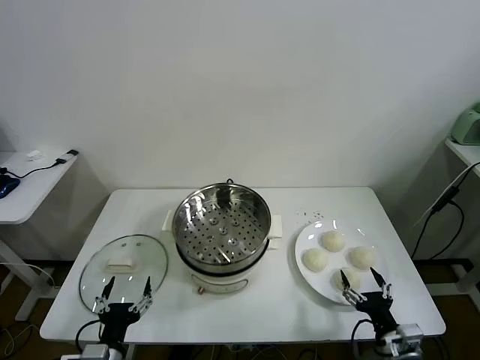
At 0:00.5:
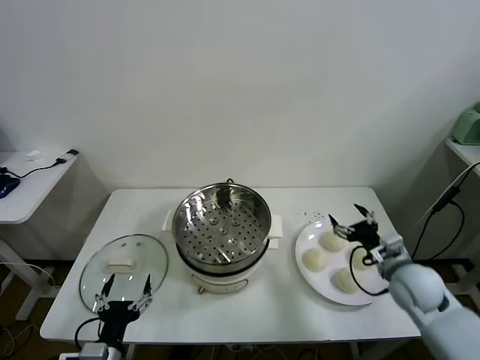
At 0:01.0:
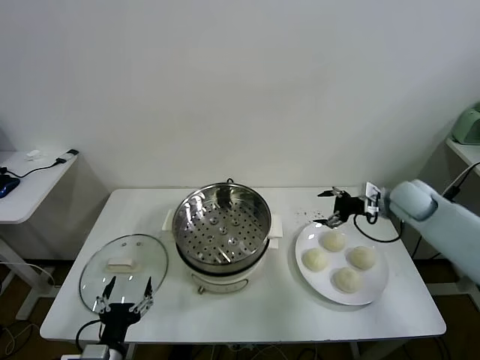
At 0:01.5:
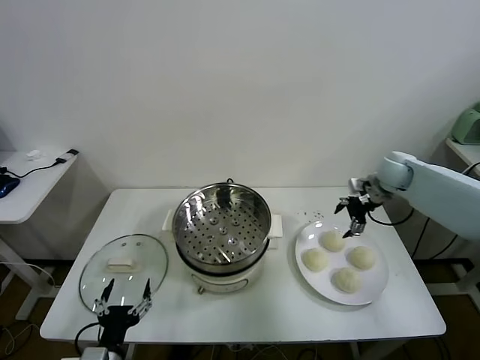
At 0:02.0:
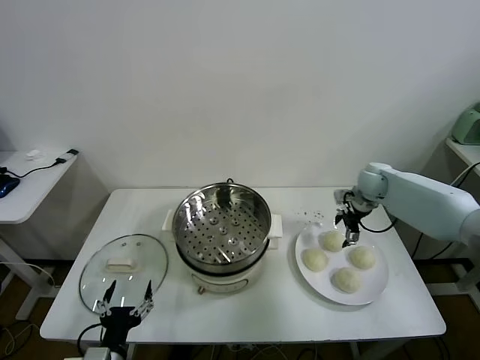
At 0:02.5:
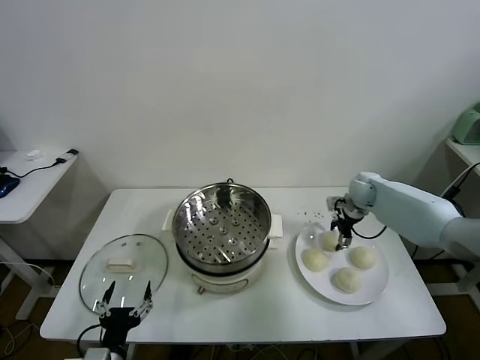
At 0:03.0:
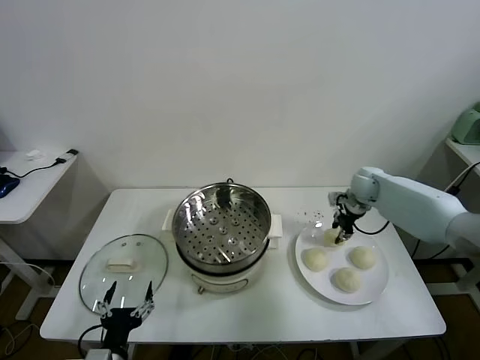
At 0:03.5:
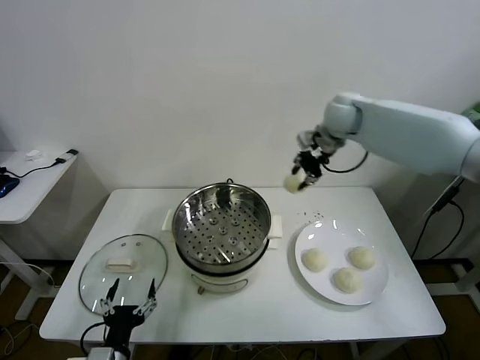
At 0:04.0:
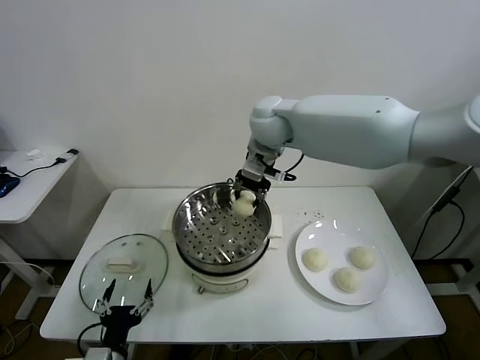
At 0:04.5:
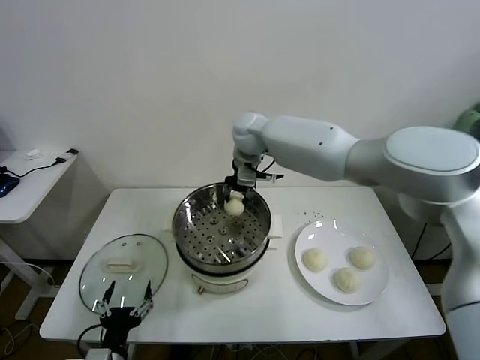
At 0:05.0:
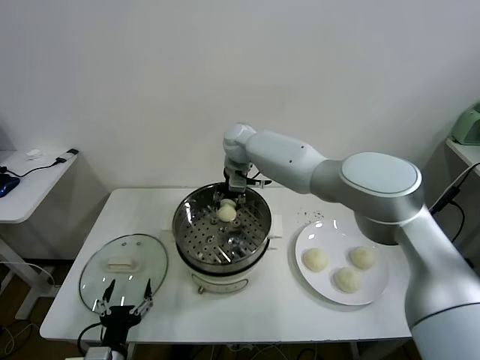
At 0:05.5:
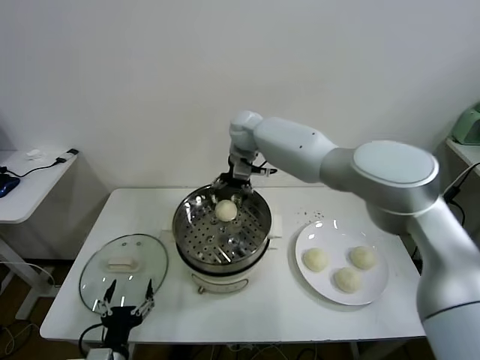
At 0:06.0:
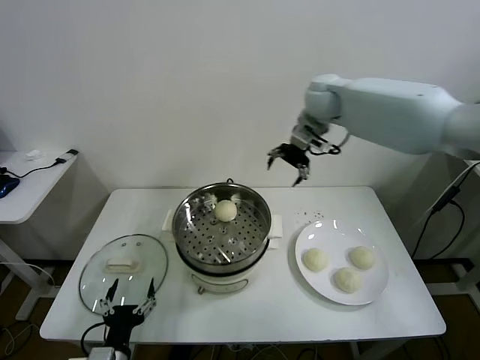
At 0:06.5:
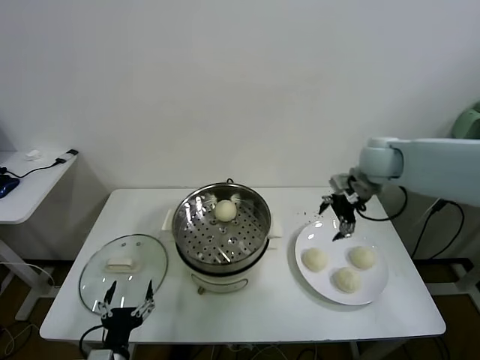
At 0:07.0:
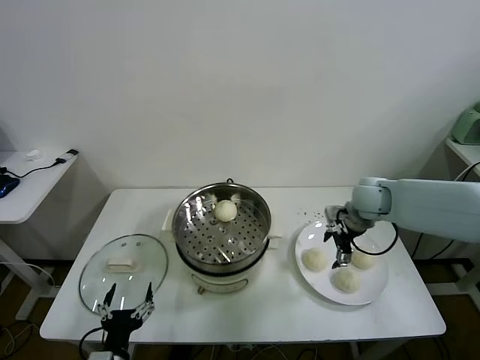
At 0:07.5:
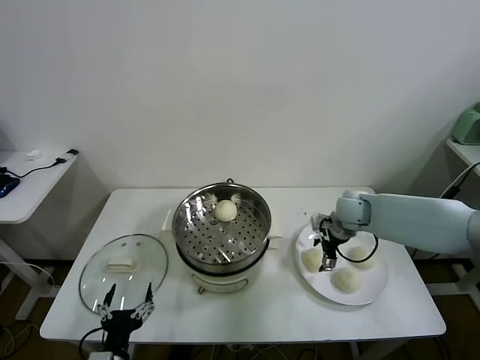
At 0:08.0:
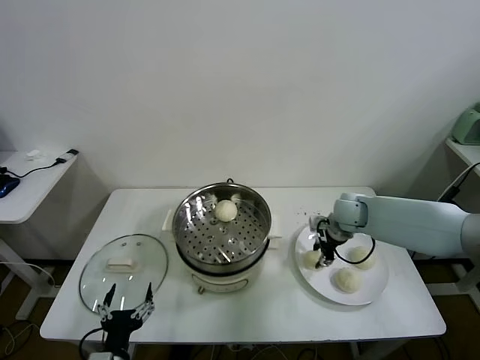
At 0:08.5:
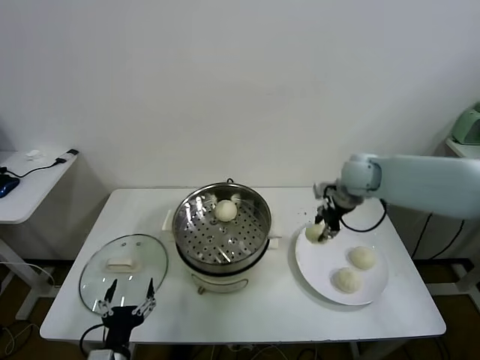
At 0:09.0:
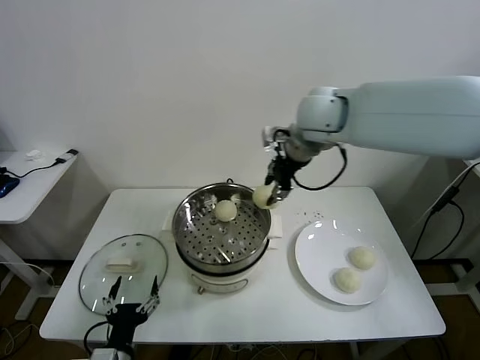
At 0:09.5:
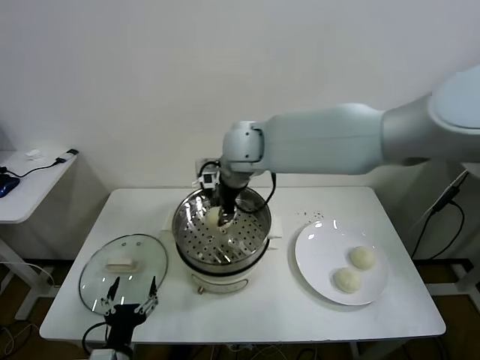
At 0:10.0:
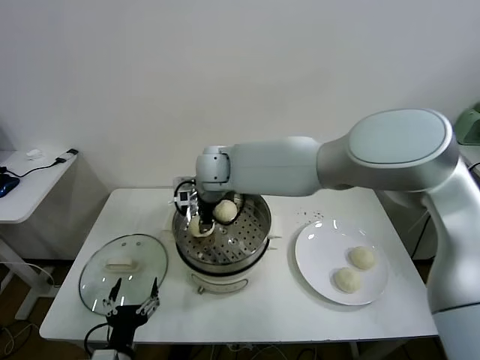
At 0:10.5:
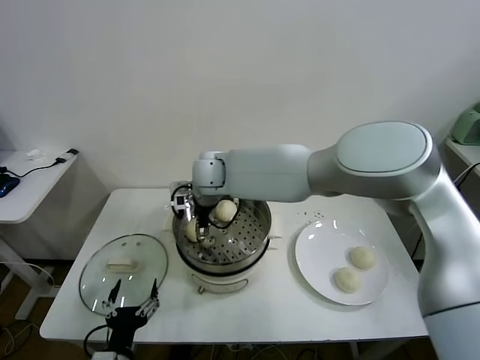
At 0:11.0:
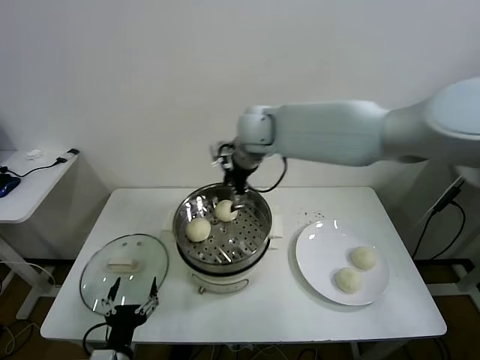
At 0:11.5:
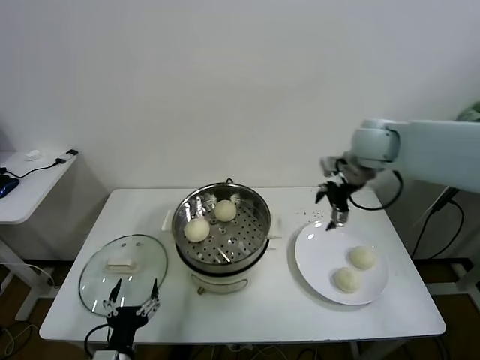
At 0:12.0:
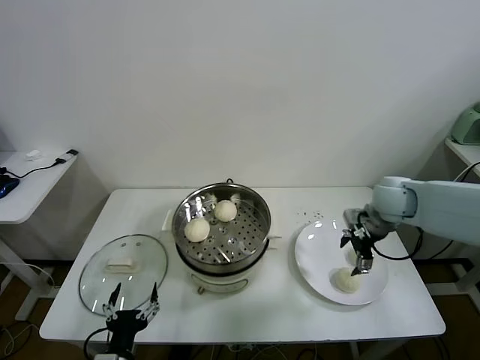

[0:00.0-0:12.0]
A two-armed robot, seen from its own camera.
Task of the whole recording: take steamed baozi put them in steamer.
Step, 0:00.0 to 0:02.5: Grasp the baozi in the plate with right gripper.
Step, 0:03.0 to 0:05.0: Place the baozi on the steamer with right gripper.
Step, 0:05.5 to 0:07.5: Grasp the baozi in the plate with right gripper.
Step, 0:08.0 to 0:10.5: Place the baozi on the steamer with right gripper.
0:02.0 to 0:04.0: The right gripper goes about 35 cm to the left and upward, and closes its fingers.
0:04.0 to 0:06.0: The right gripper goes about 15 cm to the right, and opens.
0:06.0 to 0:08.0: The right gripper heads downward, covering some 25 cm, and closes.
0:08.0 to 0:10.0: The right gripper is displaced to the left and upward by roughly 35 cm.
0:10.0 to 0:12.0: The right gripper moves to the right, approximately 40 cm, and opens its fingers.

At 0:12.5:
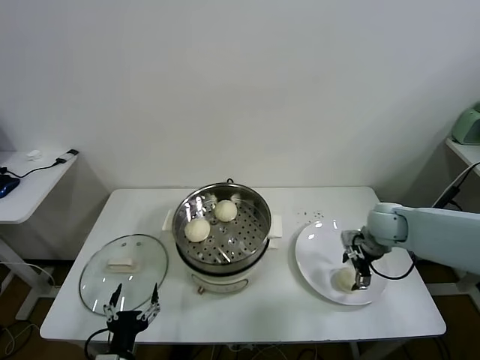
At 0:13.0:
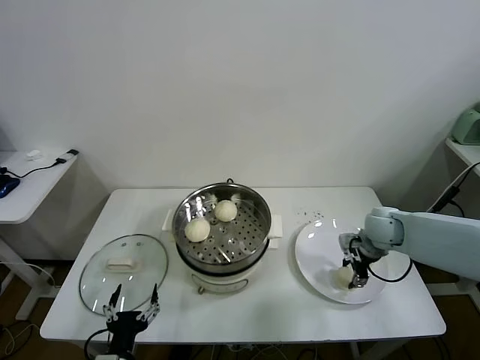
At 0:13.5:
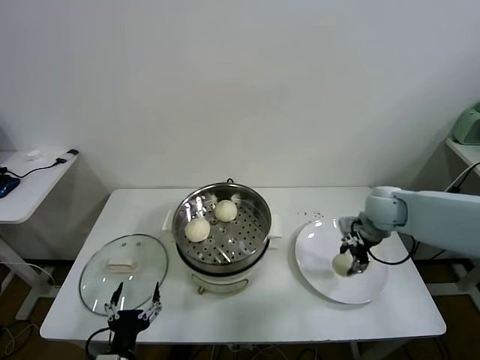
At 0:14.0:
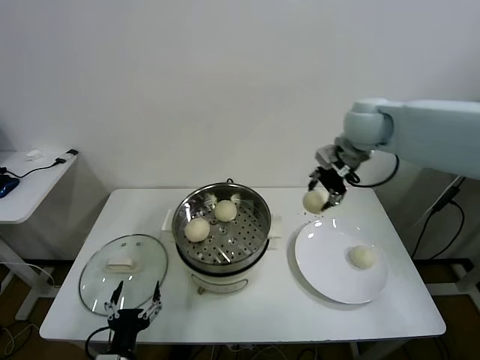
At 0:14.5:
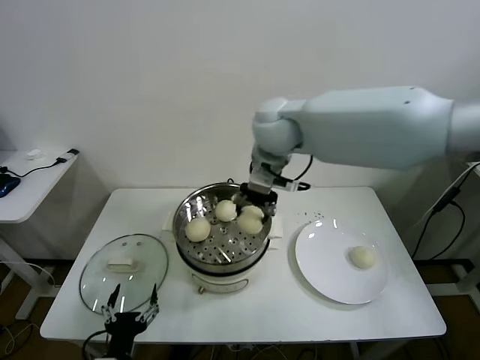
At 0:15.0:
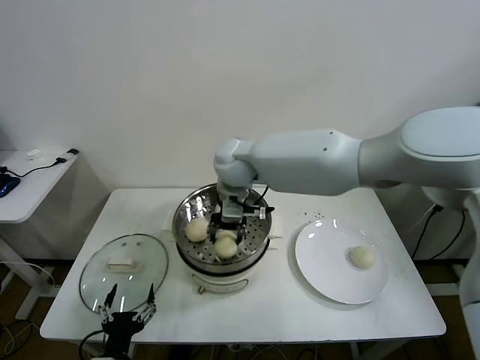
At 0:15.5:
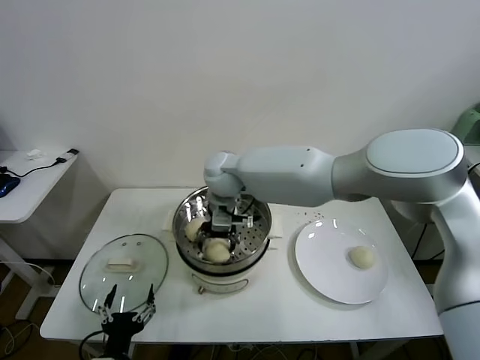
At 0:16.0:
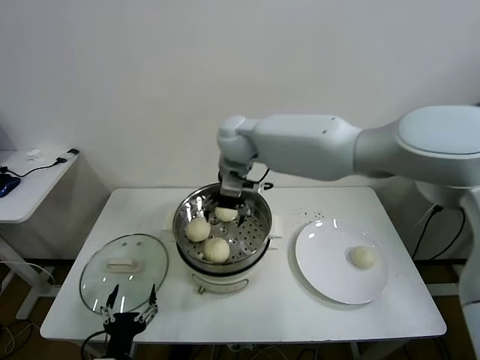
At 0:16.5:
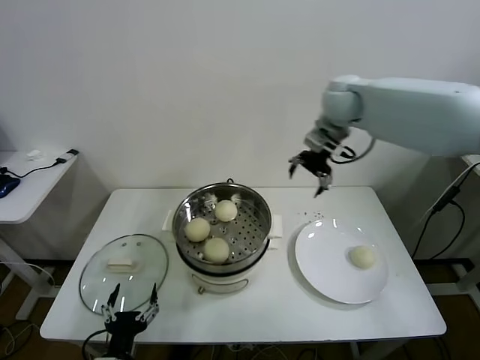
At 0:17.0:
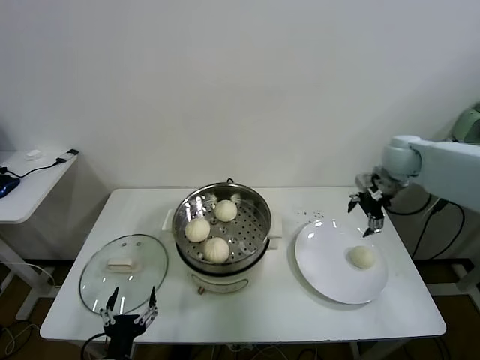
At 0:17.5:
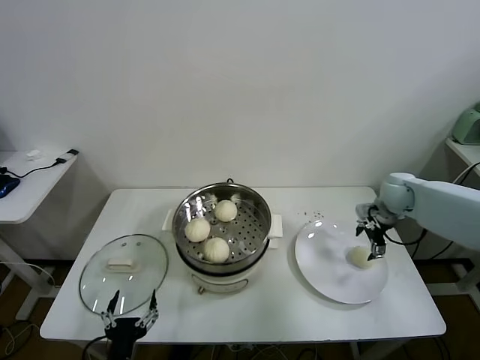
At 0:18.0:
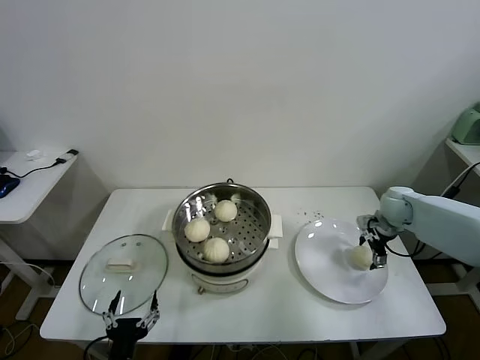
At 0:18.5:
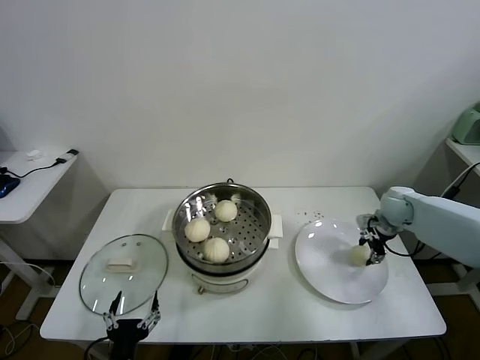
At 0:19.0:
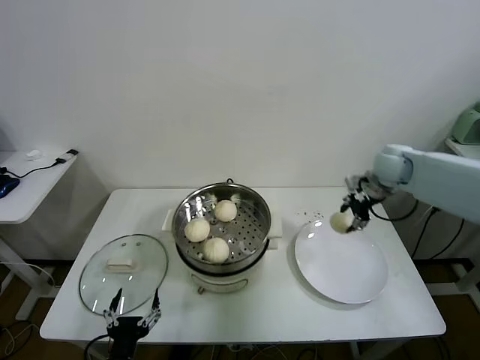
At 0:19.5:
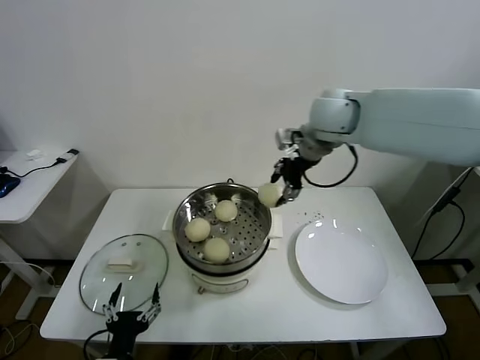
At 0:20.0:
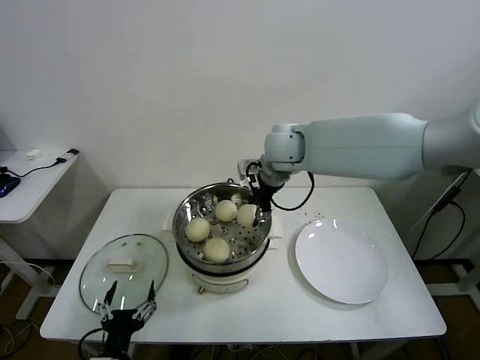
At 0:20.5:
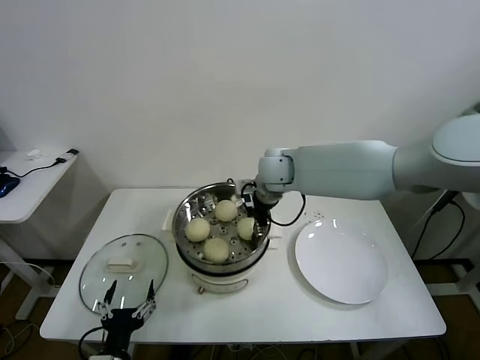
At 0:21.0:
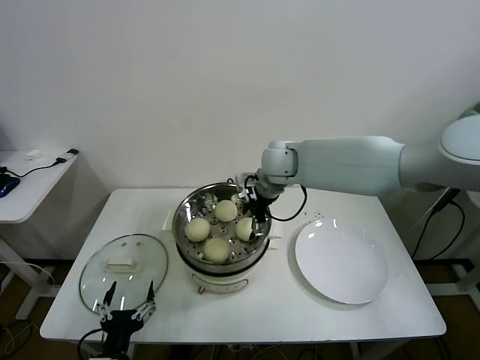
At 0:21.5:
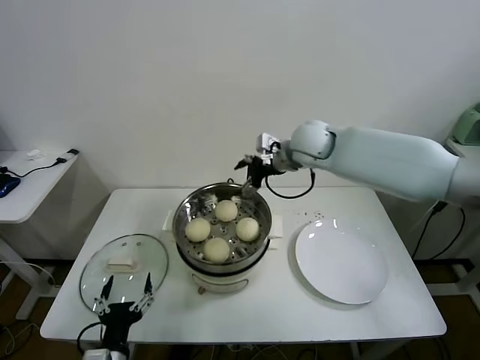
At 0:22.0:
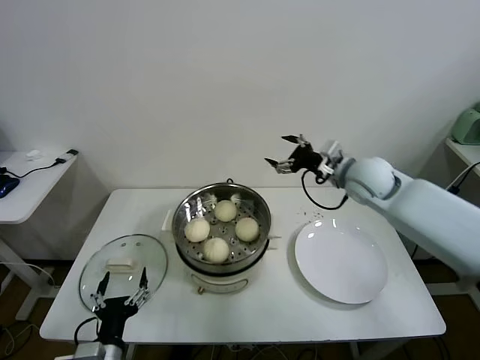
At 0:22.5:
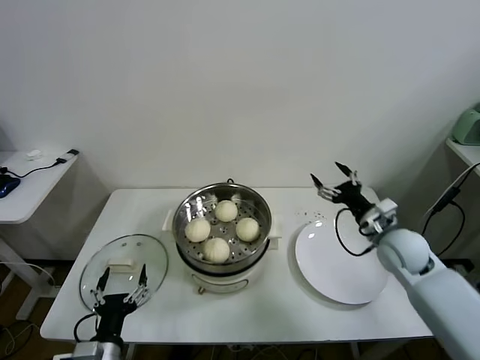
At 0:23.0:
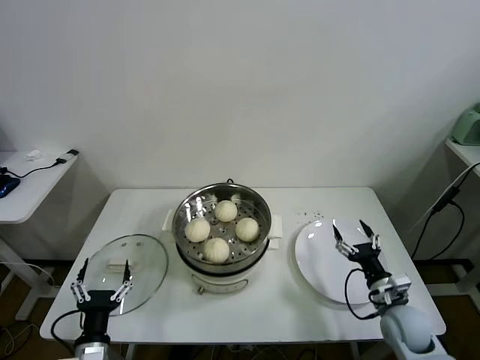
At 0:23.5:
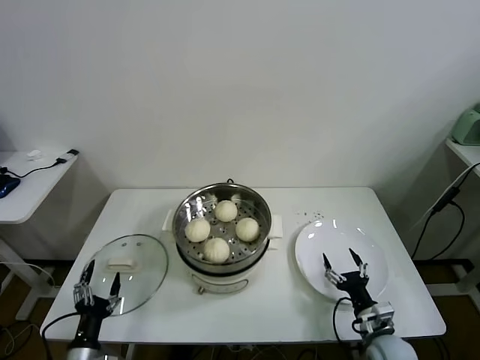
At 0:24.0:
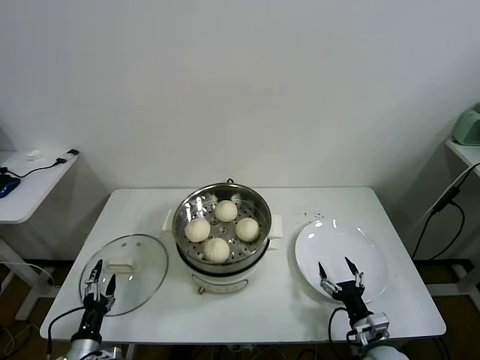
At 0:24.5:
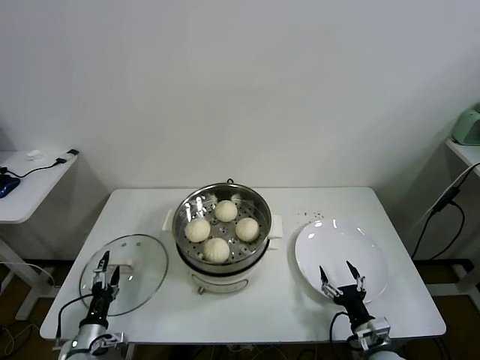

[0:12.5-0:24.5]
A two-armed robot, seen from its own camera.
Task of the whole recording: take steamed baozi put them in steamer.
Step, 0:13.0 to 0:15.5: Place the baozi on the steamer with right gripper.
Step, 0:16.0 to 0:18.0: Grasp the baozi in the plate with right gripper.
Step, 0:18.5 to 0:20.5: Place the baozi on the steamer with right gripper.
0:12.5 to 0:14.5: The right gripper is displaced to the left and upward by approximately 40 cm, and closes.
0:14.5 to 0:16.5: The right gripper heads to the right and forward, covering roughly 20 cm, and opens its fingers.
0:16.5 to 0:18.5: The right gripper heads downward and to the right, covering approximately 30 cm, and closes up.
0:18.5 to 0:20.5: The right gripper heads to the left, covering roughly 35 cm.
0:20.5 to 0:22.5: The right gripper travels to the right, backward and downward by about 35 cm, and opens.
0:22.5 to 0:24.5: The right gripper is displaced downward and backward by some 25 cm, while the left gripper is displaced downward, to the left and forward by approximately 15 cm.

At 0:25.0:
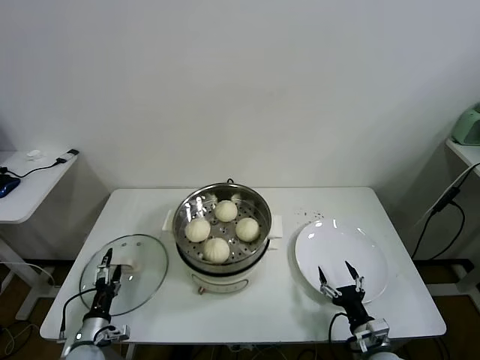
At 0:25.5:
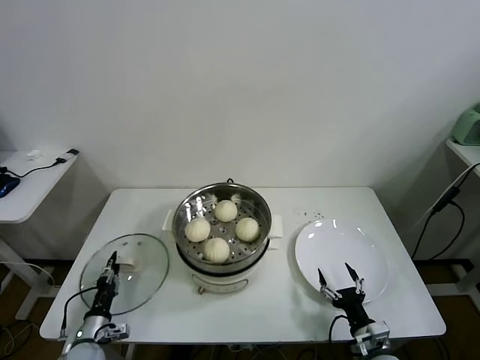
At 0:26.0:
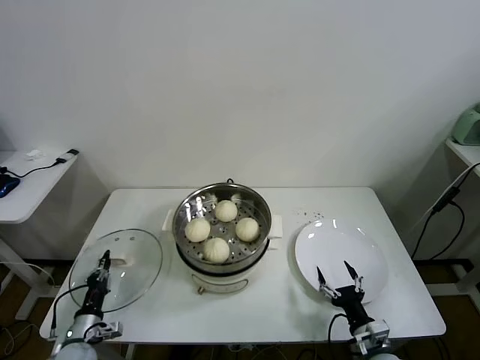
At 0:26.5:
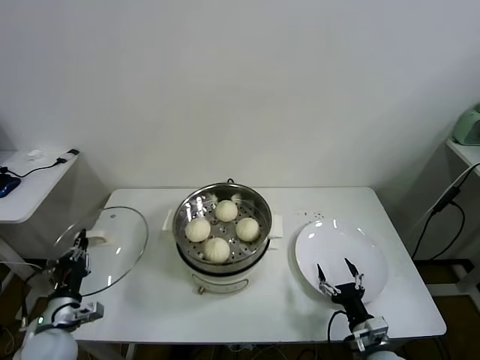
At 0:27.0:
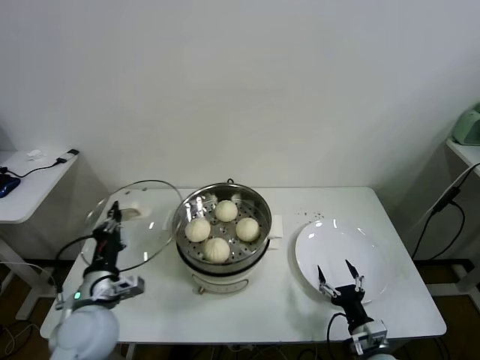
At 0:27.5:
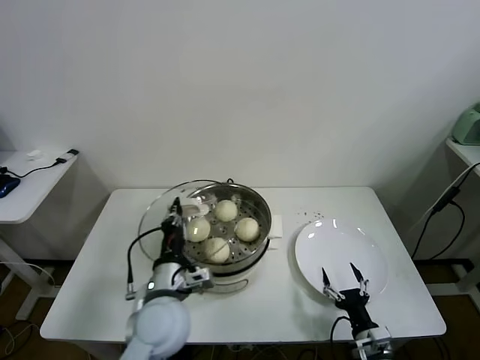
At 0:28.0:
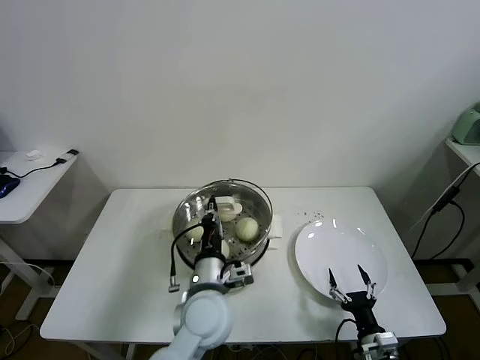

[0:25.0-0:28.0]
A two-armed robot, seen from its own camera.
Task of the whole recording: take steamed baozi put them in steamer.
0:25.0 to 0:26.5: The left gripper is displaced upward by approximately 10 cm, and closes.
0:26.5 to 0:28.0: The left gripper is displaced to the right by about 30 cm.
